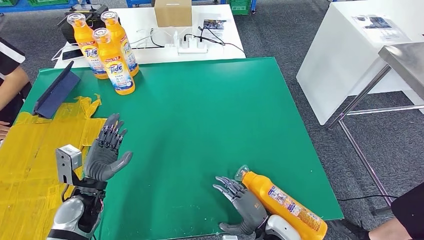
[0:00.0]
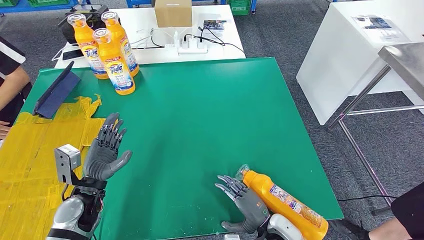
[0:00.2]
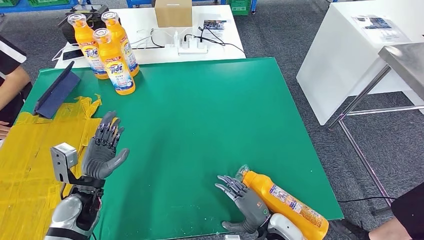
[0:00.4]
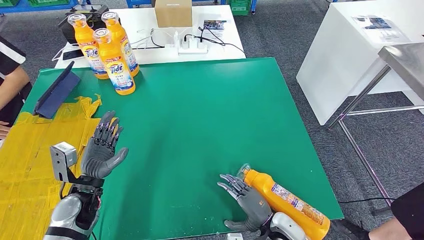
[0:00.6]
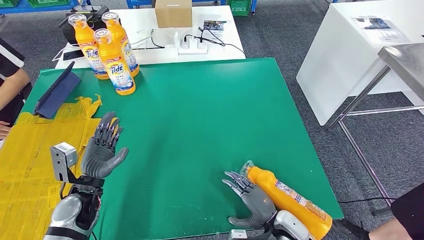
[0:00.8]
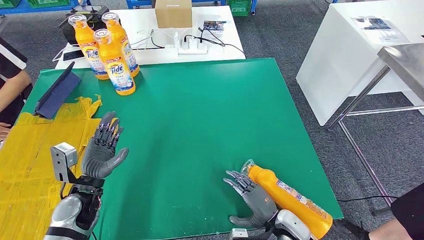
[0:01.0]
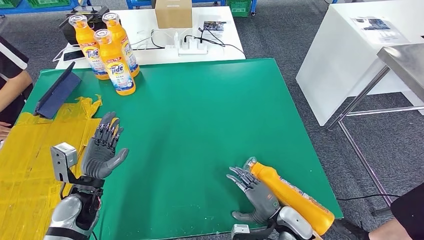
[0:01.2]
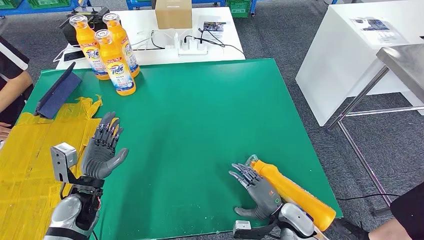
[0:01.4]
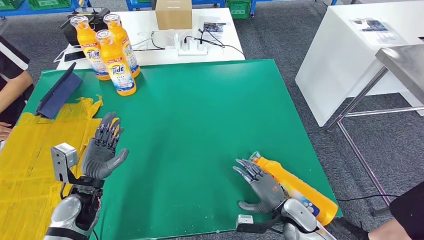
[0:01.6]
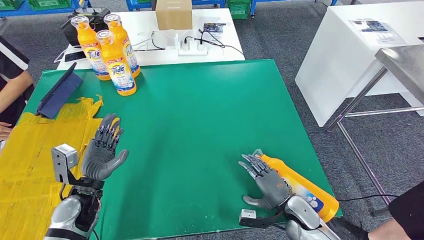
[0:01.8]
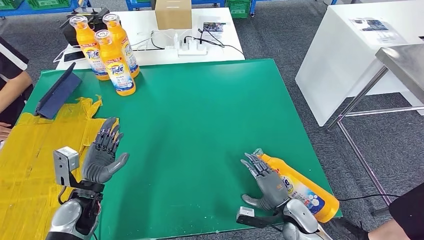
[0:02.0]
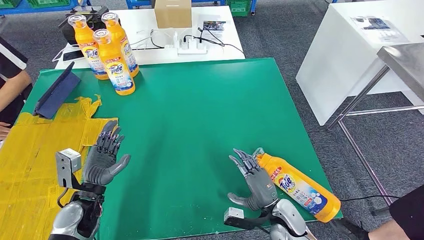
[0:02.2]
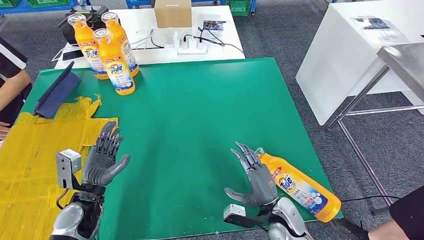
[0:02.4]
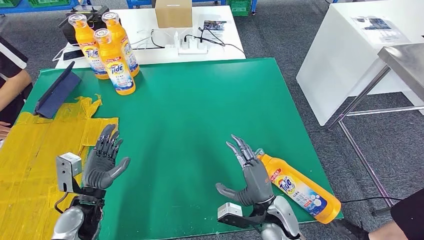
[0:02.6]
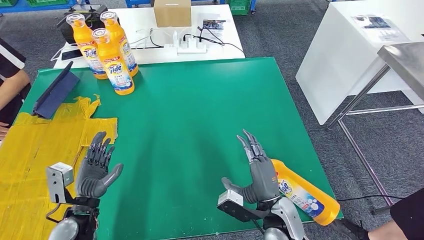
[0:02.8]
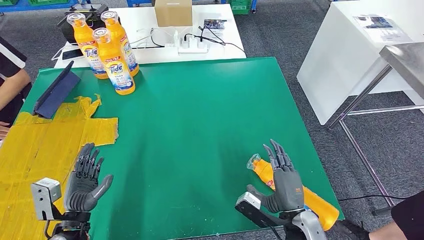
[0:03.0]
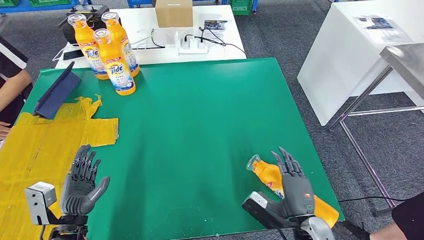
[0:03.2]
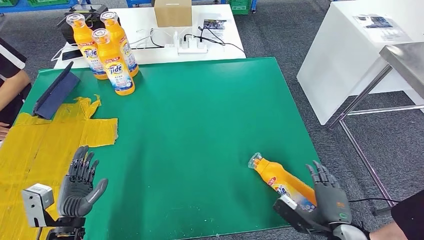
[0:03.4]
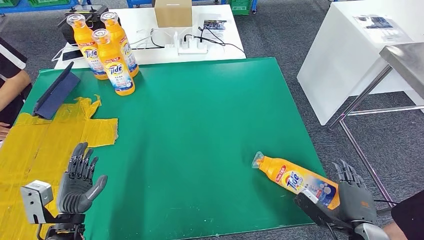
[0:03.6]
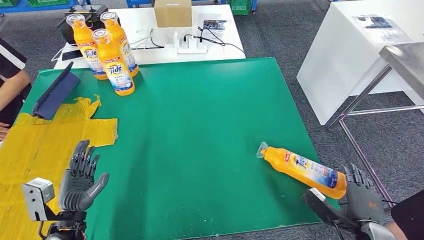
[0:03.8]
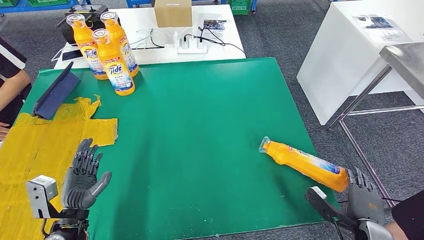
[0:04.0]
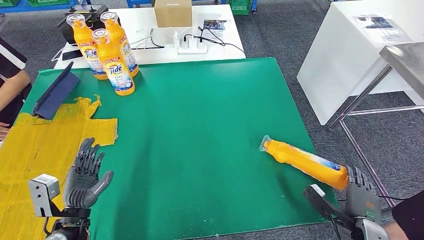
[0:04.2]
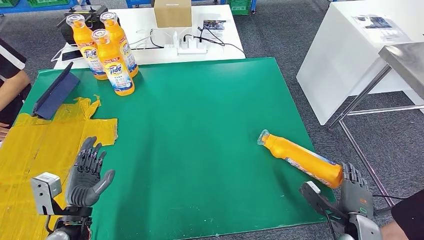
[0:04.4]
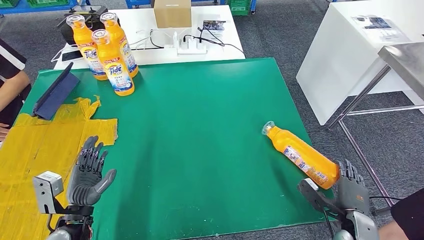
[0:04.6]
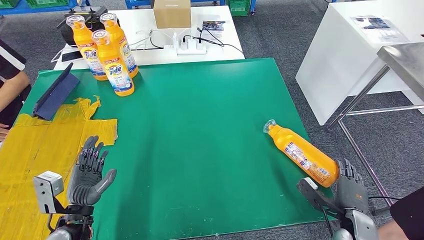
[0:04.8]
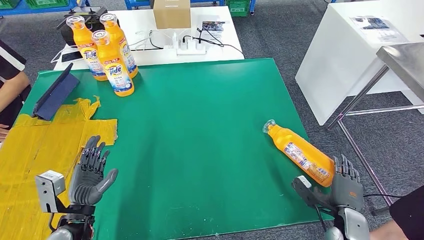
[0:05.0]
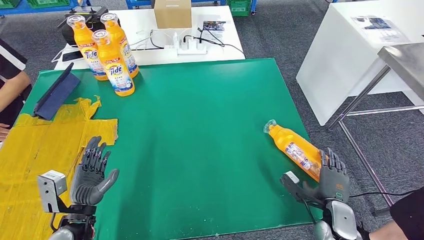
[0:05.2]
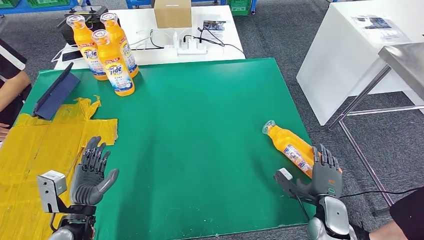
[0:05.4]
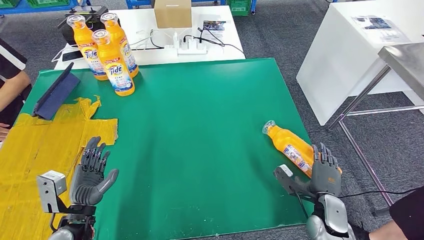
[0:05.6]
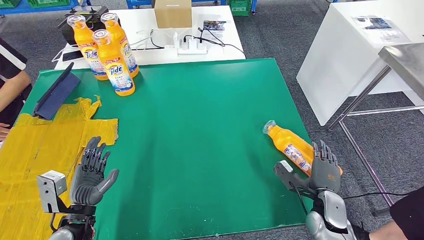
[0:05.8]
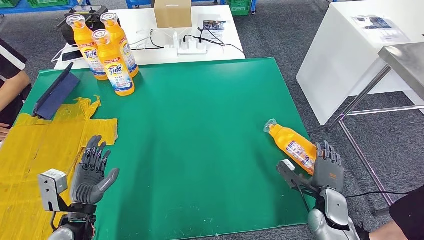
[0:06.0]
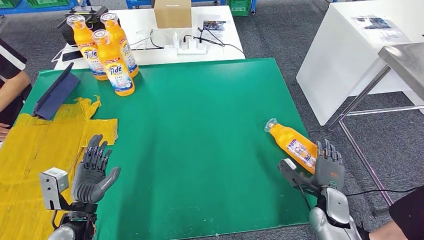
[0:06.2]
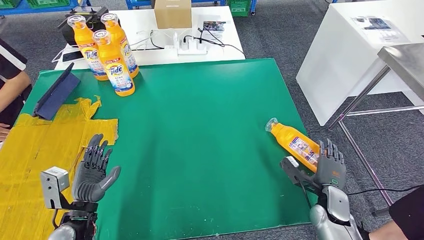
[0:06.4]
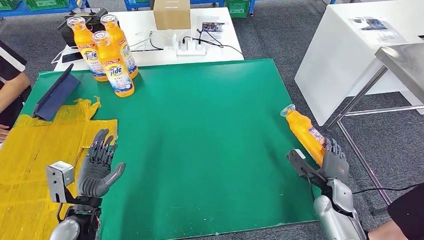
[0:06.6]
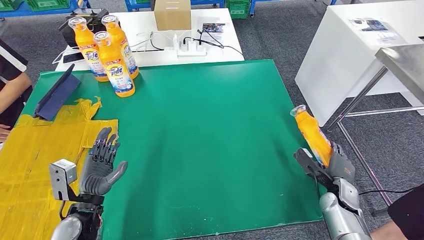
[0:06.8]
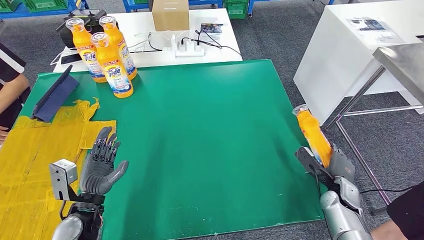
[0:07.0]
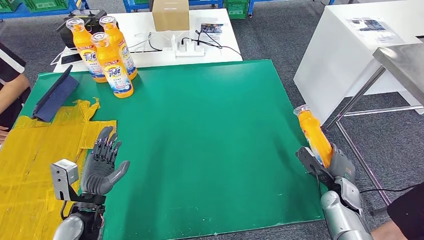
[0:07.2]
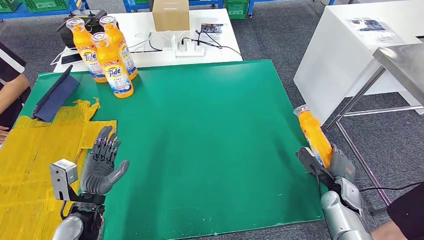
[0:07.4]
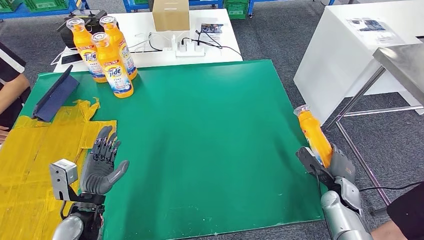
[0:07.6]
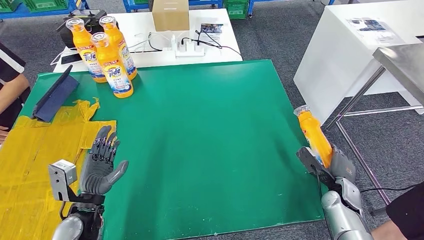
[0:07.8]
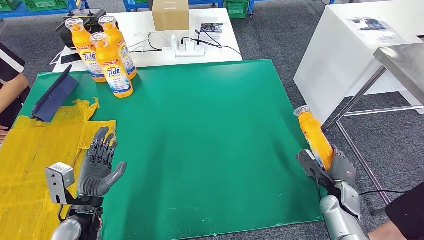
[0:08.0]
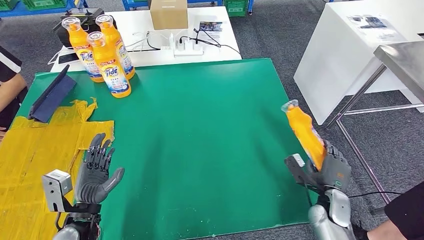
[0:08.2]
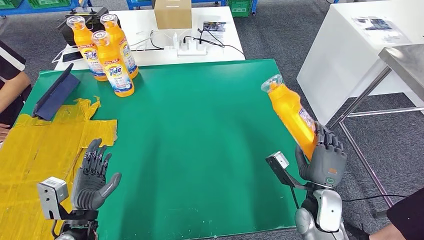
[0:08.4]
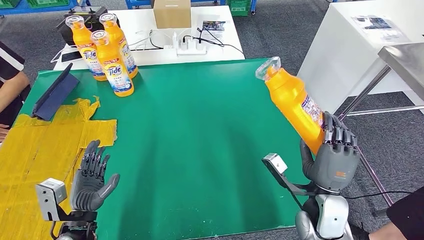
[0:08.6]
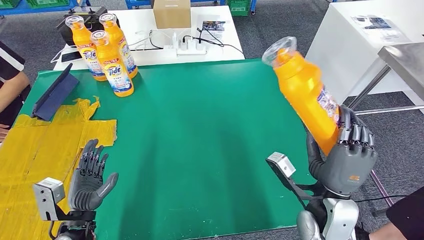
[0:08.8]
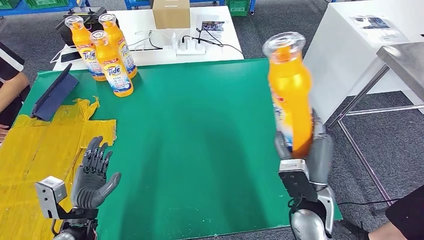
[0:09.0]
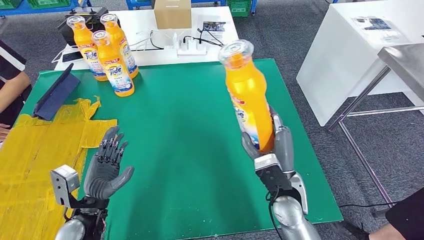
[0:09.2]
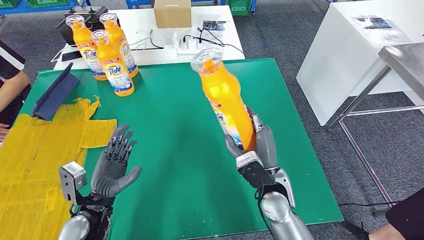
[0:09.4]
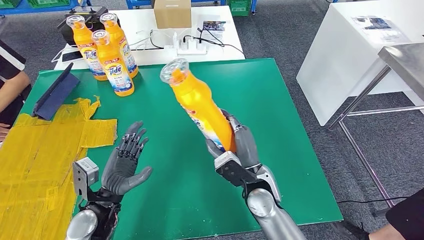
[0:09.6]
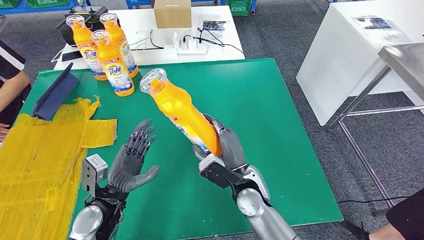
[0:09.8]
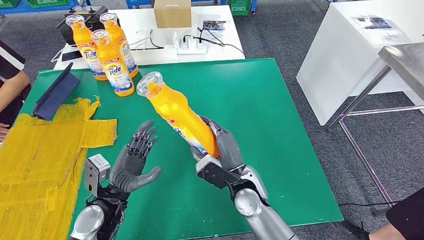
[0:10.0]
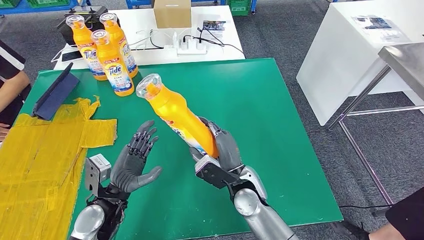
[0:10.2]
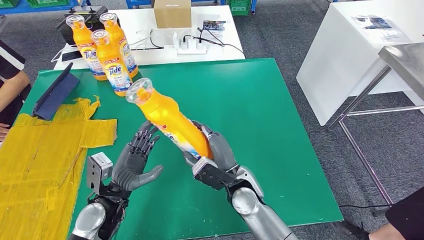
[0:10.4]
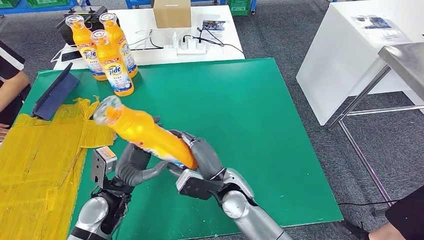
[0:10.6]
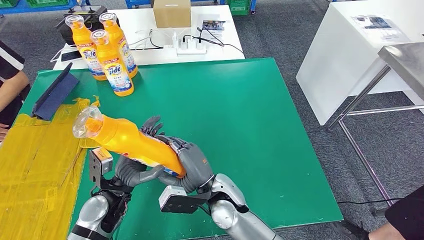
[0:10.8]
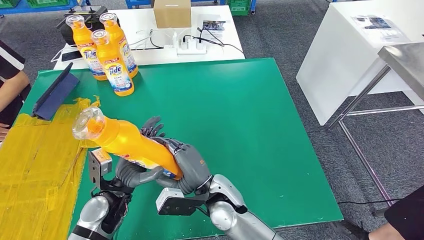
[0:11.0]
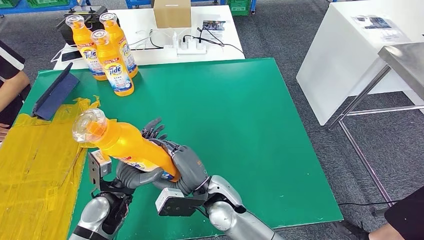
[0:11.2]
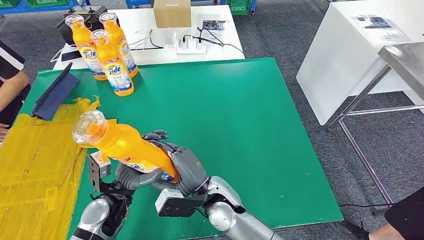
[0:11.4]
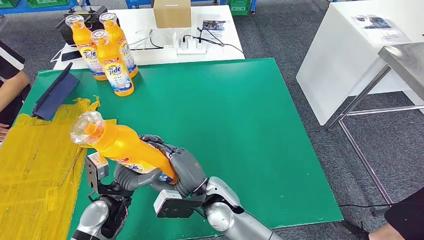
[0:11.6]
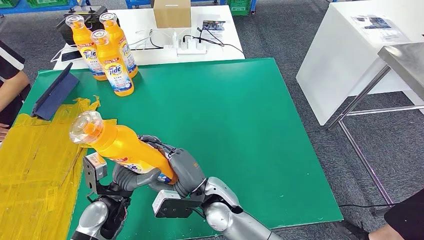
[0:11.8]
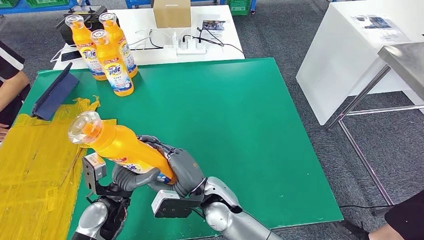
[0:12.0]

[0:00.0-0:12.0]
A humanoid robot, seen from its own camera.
Step, 0:00.0 to 0:08.8: Pick up the fast-moving consumer goods bottle from the table.
0:00.0 to 0:01.6: The right hand heads to the right, covering about 5 cm.
0:03.0 to 0:04.4: The right hand is displaced to the right by about 15 cm.
0:04.4 to 0:06.0: The right hand moves forward, some 10 cm.
0:10.4 to 0:12.0: The right hand shifts about 5 cm to the left.

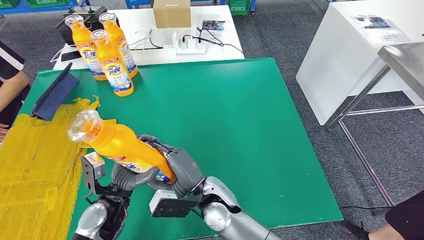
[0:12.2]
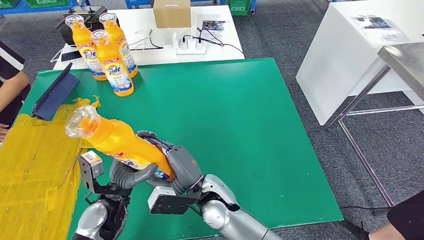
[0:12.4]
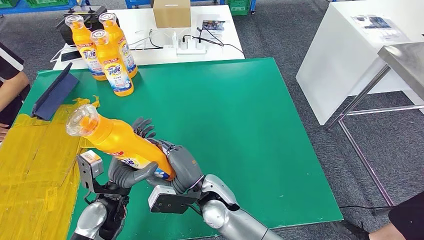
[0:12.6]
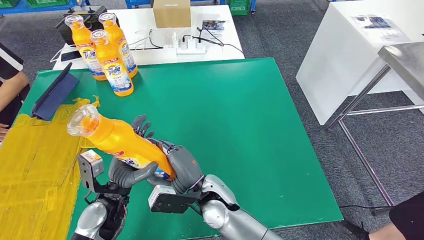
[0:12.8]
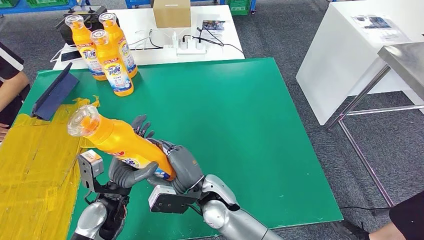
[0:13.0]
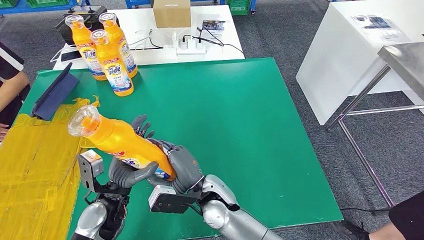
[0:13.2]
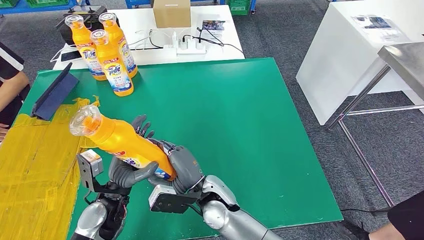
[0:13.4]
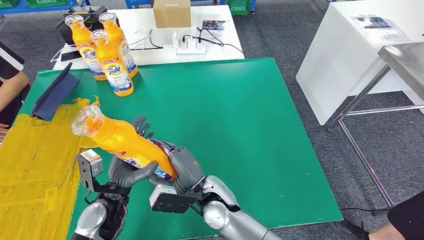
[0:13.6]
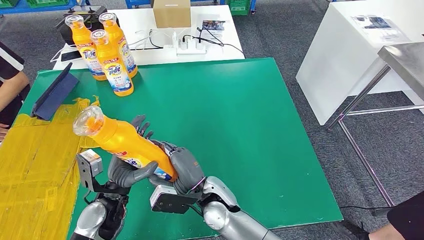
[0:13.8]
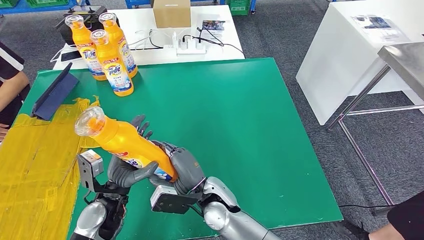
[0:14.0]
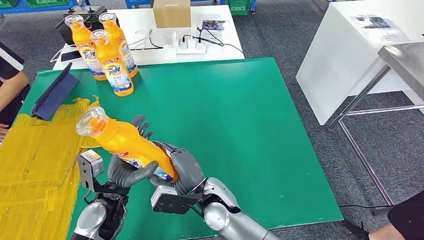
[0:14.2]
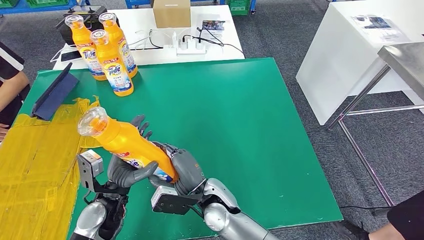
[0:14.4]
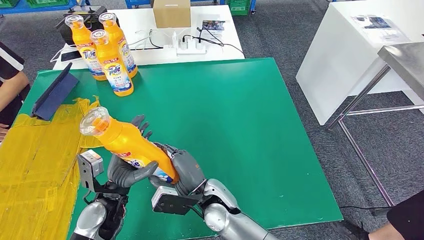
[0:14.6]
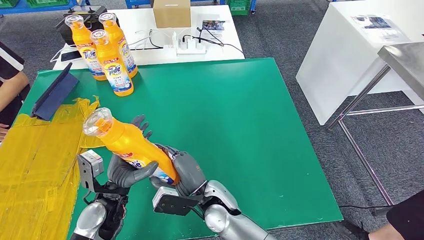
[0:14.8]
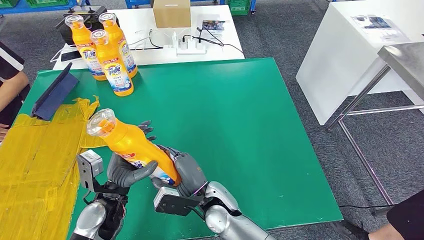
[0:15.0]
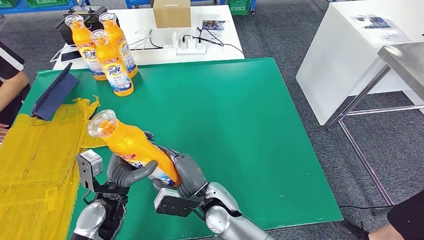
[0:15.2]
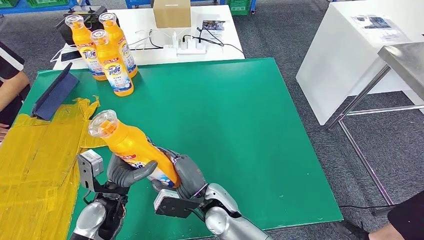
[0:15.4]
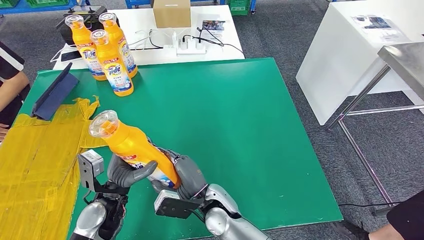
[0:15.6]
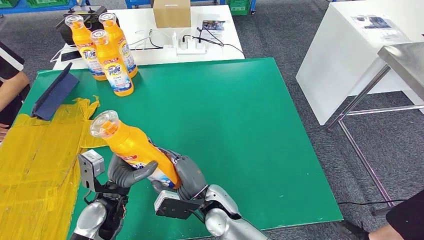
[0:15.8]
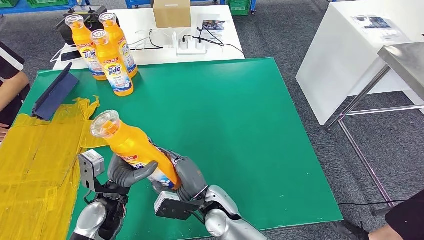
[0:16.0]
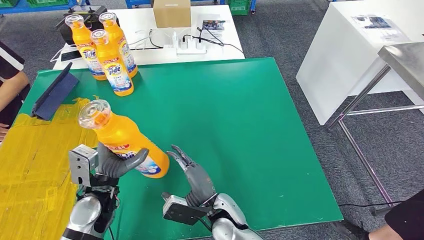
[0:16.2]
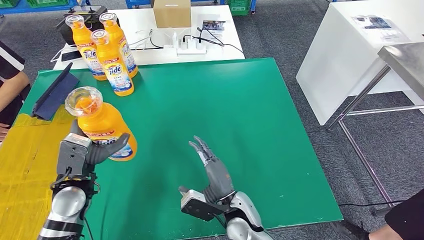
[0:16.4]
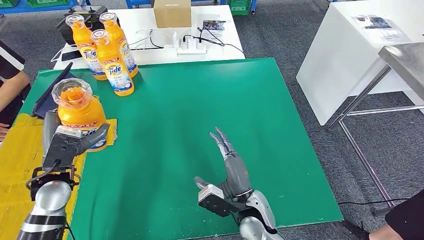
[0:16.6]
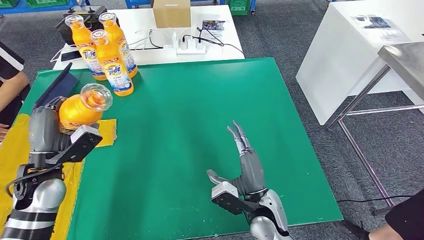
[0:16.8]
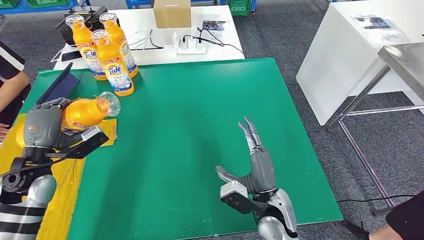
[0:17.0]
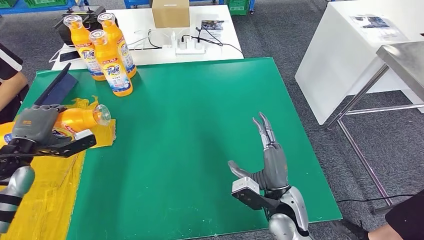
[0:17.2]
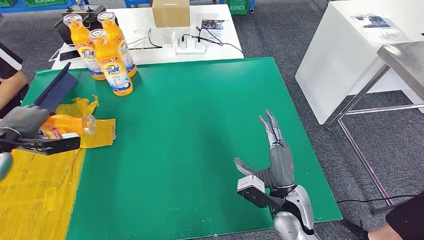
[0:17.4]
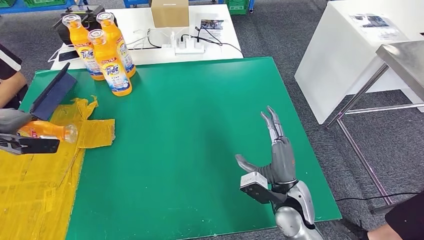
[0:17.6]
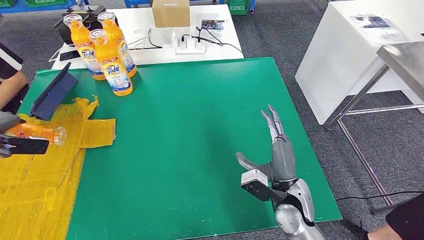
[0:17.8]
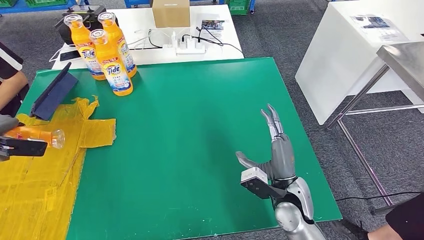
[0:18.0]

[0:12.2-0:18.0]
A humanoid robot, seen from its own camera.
0:12.2 to 0:13.6: Both hands stay about where they are.
0:13.6 to 0:15.0: There are only small adjustments of the hands.
0:15.0 to 0:16.6: The left hand is displaced to the left and upward by approximately 10 cm. The right hand shifts about 10 cm to the right.
0:16.6 to 0:18.0: The left hand is displaced to the left by approximately 25 cm. The right hand shifts about 10 cm to the right.
